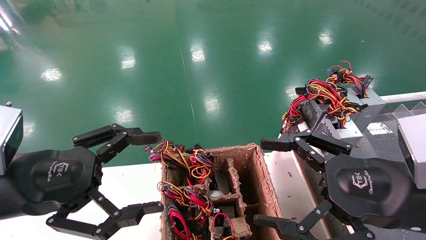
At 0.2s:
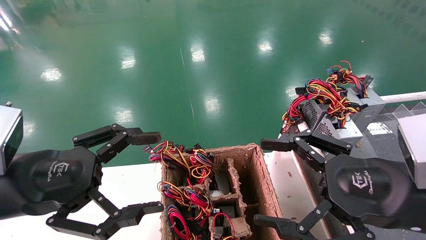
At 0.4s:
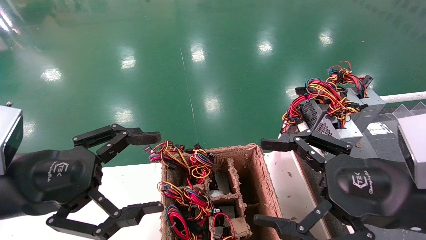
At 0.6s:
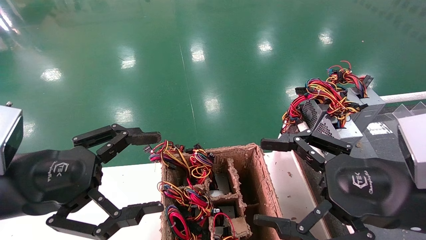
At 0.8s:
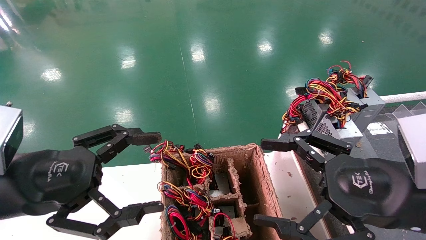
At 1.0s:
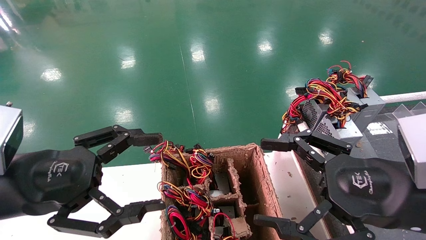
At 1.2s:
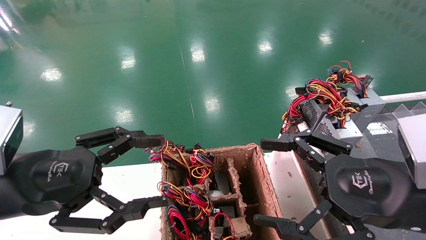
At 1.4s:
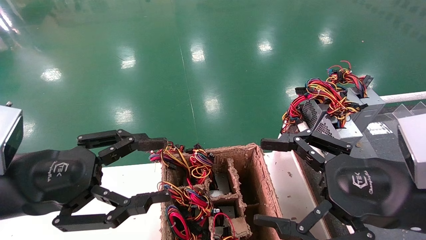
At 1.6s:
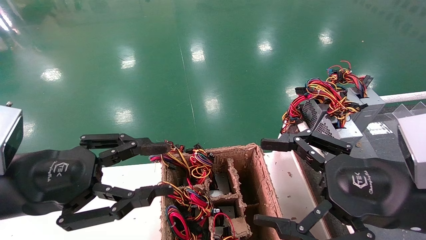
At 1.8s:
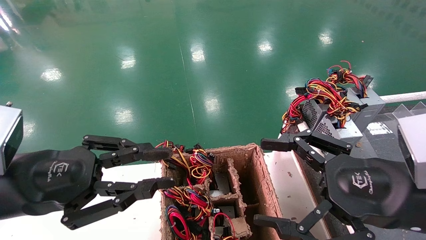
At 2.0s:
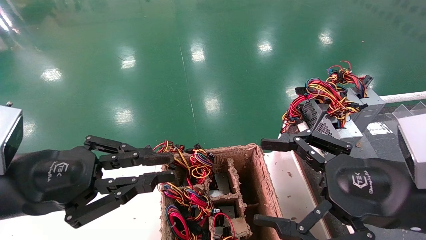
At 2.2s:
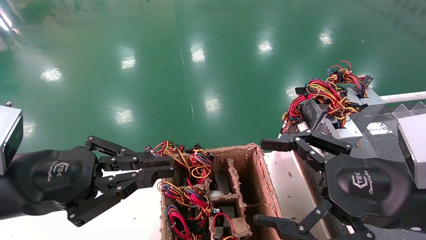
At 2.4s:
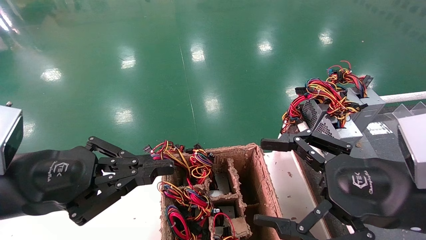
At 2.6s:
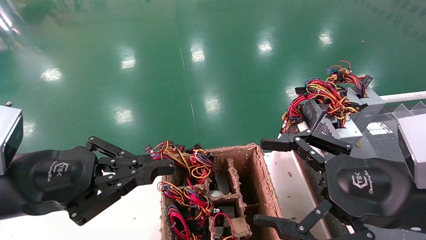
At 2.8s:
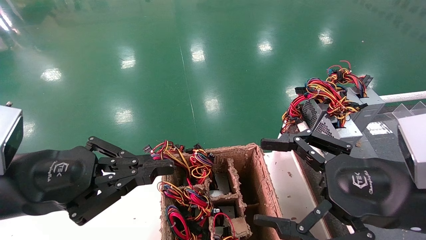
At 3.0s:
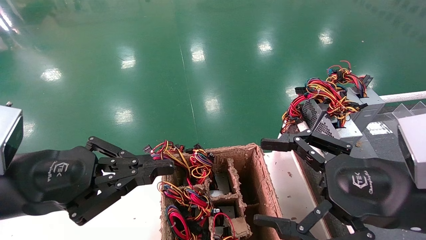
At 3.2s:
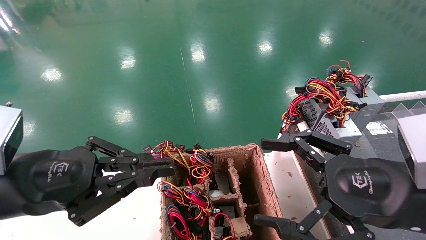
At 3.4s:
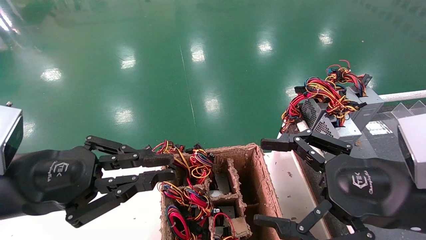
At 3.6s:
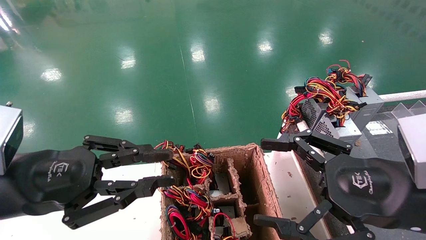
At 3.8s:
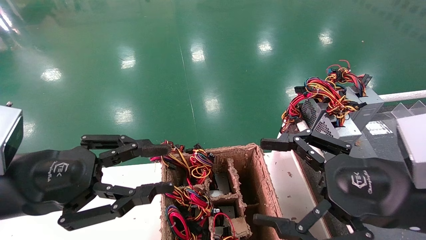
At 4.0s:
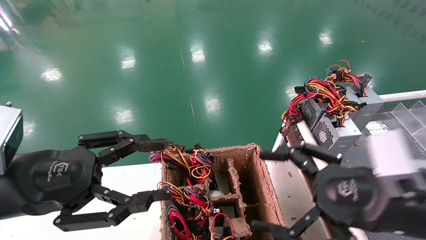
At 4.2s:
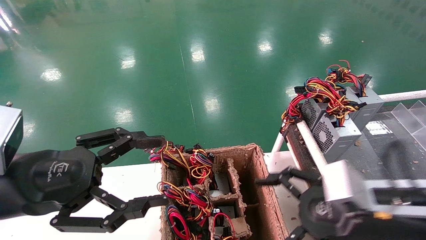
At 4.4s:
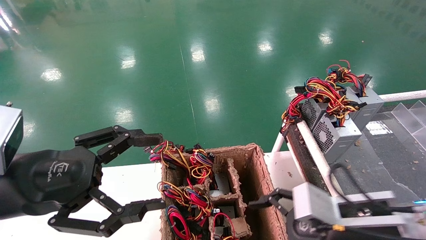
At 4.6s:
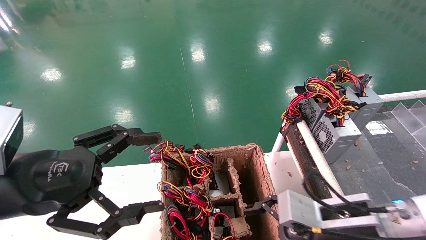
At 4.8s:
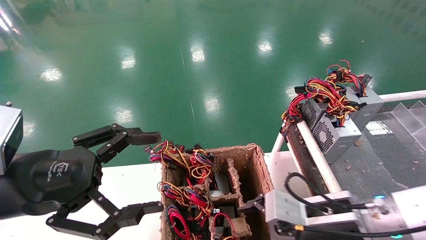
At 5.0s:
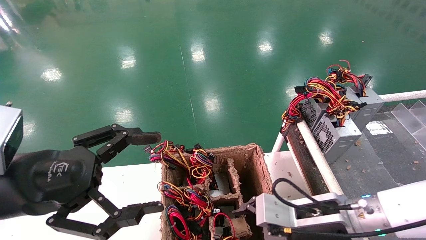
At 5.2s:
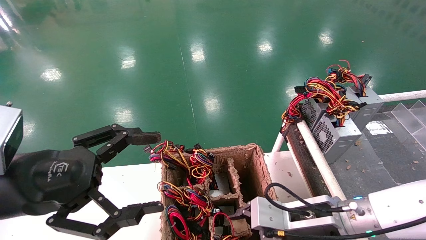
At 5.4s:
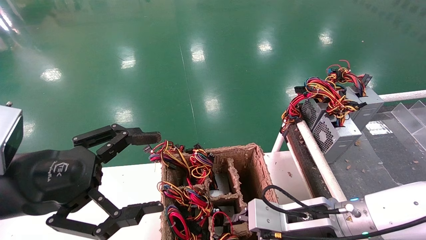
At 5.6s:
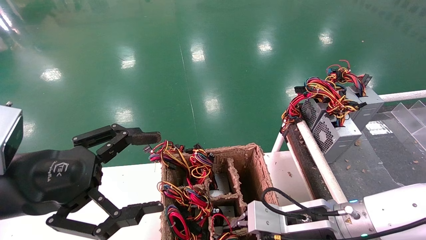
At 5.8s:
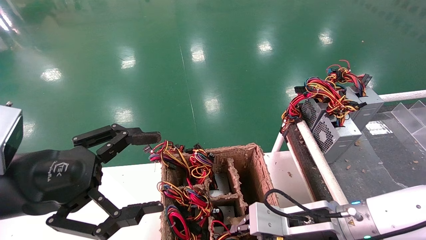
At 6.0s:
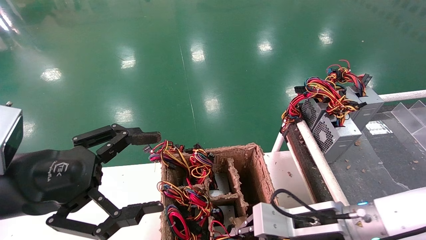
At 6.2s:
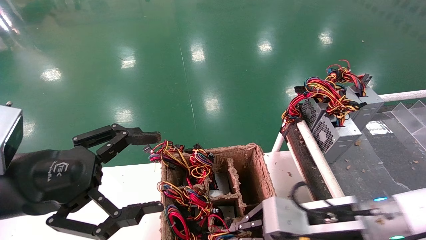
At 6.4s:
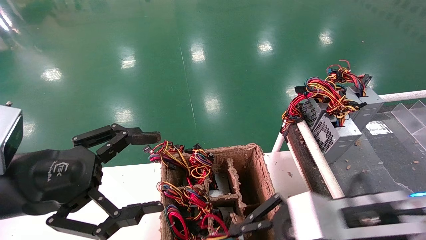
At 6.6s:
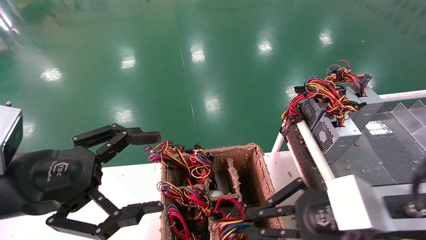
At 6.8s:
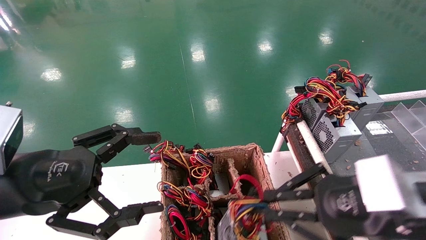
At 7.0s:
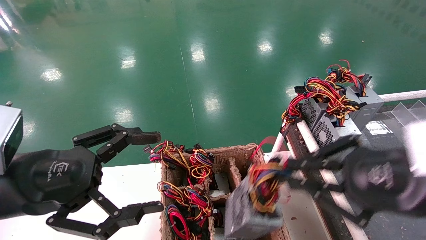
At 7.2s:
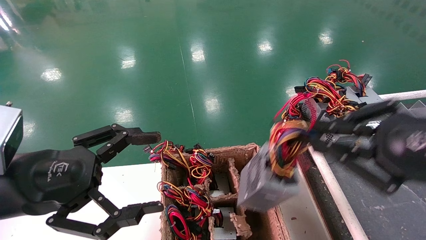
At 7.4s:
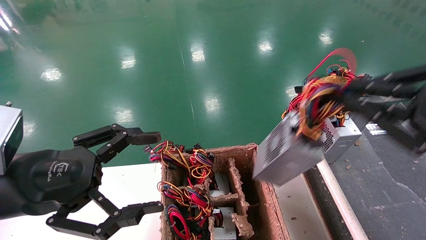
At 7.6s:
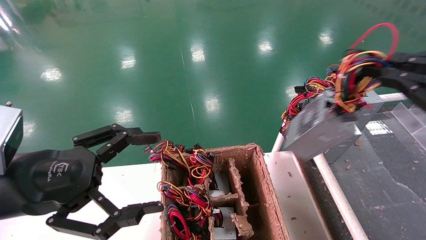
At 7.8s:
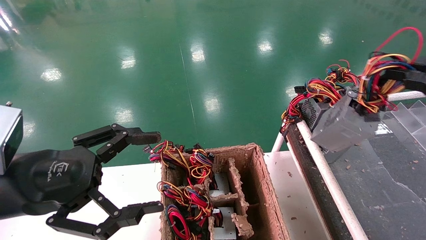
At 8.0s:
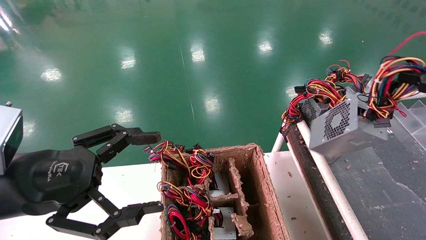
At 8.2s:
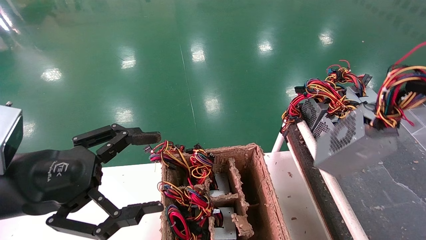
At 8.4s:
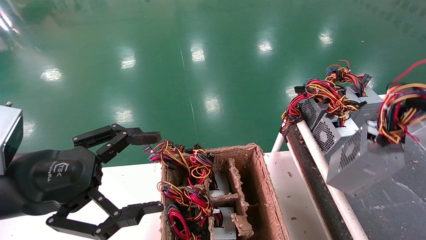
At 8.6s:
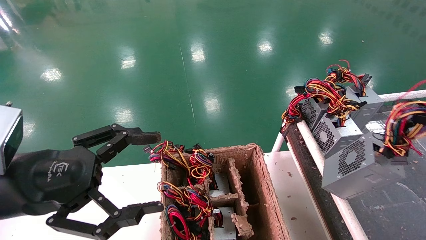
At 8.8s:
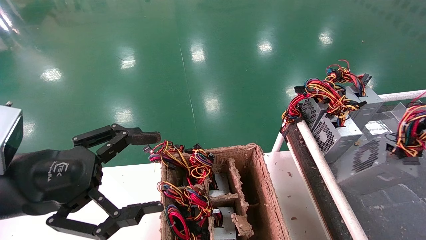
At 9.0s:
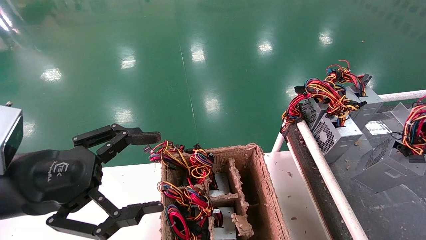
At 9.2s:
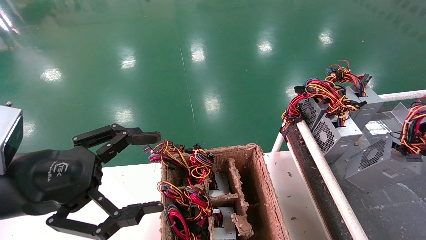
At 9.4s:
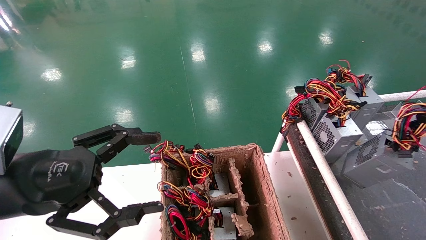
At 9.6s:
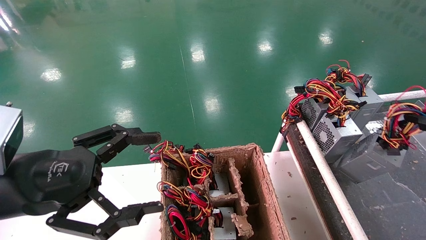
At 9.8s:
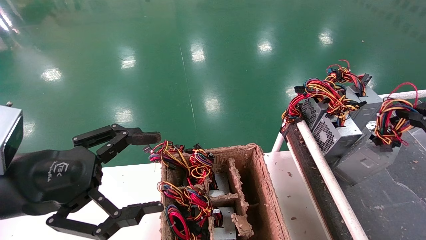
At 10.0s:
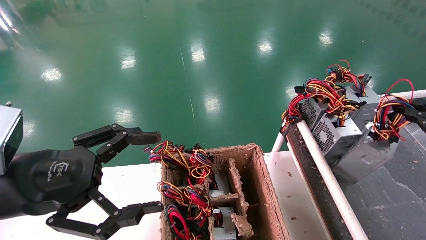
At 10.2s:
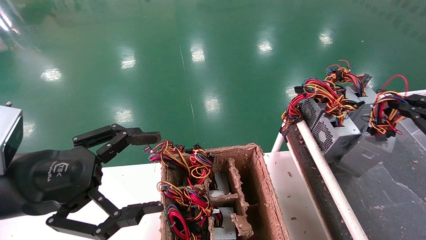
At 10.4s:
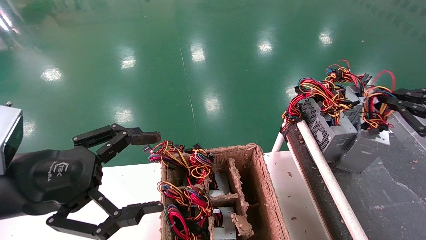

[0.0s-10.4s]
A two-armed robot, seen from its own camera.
Step, 4.2s to 6.0s: Grab and lift the power supply from the large box.
0.0s to 1.4s: Both grippers stay put.
1.4s to 3.0s: The left gripper closes.
3.0s to 4.4s: The left gripper opens up. Meanwhile the right gripper shifts approximately 10 cm downward.
4.4s to 6.0s: The right gripper ends up approximately 5 cm from where it was, and closes up.
6.0s to 7.4s: The right gripper shifts approximately 25 cm upward, to the right and backward.
7.4s to 9.0s: The right gripper shifts roughly 15 cm to the right.
9.0s to 10.4s: The right gripper heads forward, covering some 10 cm.

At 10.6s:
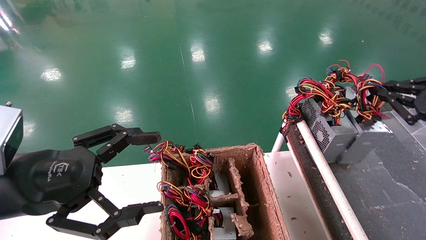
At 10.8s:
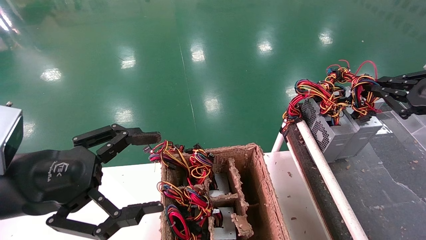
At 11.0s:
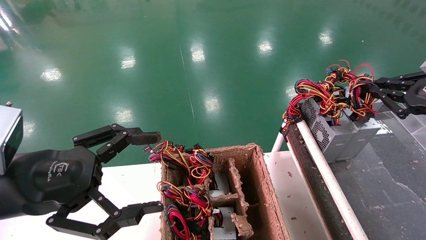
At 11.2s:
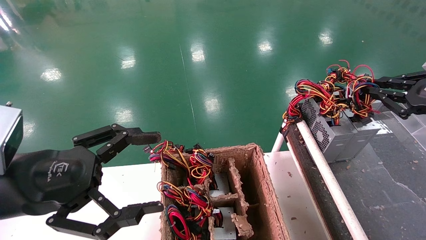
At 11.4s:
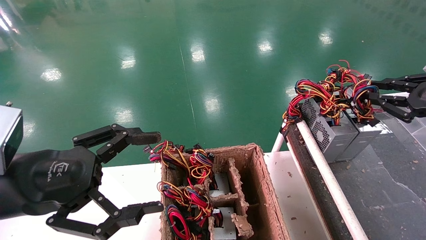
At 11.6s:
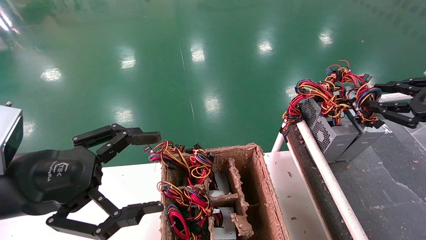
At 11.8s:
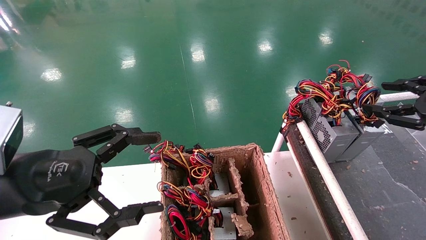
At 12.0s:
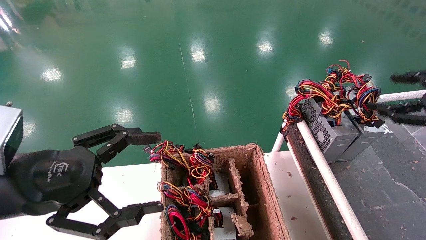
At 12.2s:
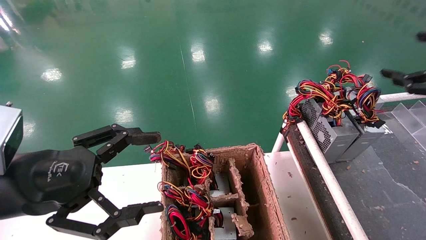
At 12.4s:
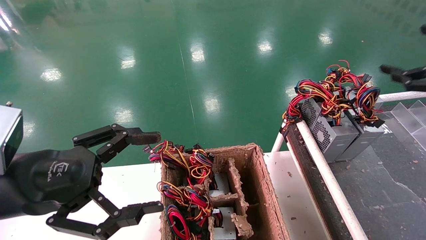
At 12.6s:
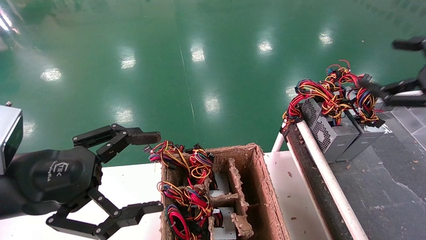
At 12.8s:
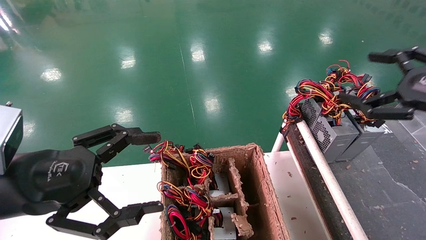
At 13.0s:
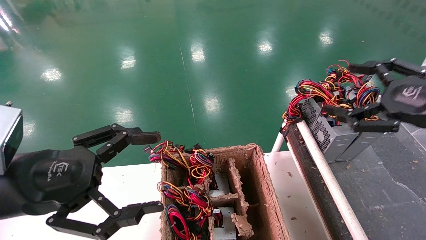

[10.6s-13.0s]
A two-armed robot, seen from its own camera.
10.6s to 11.8s: The right gripper opens.
11.8s to 13.0s: The right gripper heads to the left, covering some 10 cm, and opens.
